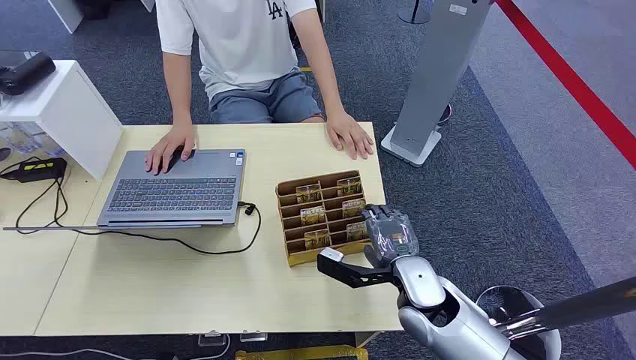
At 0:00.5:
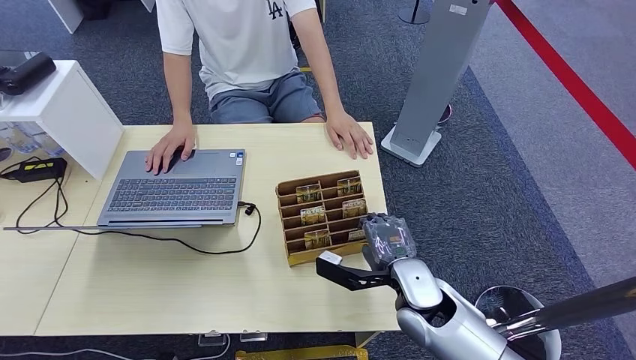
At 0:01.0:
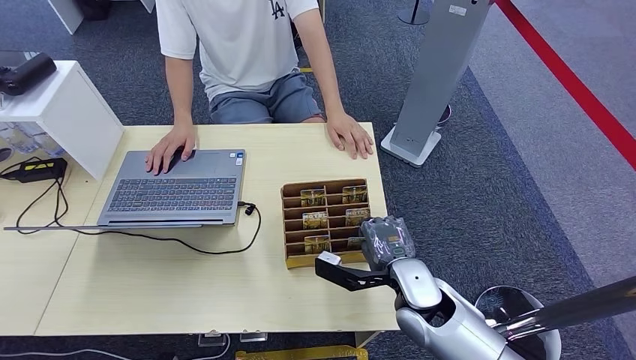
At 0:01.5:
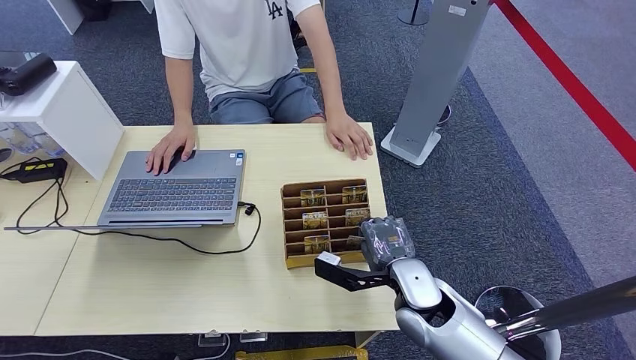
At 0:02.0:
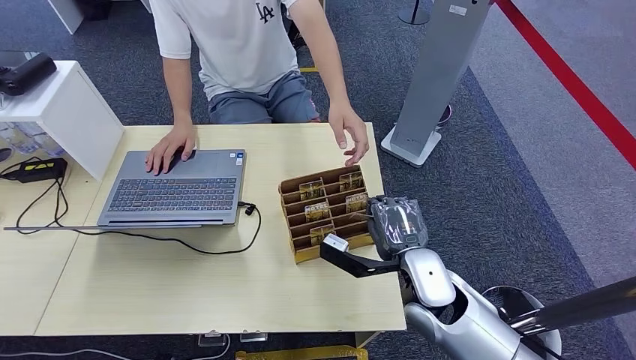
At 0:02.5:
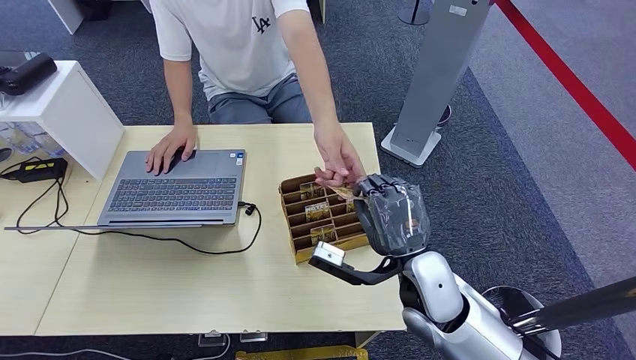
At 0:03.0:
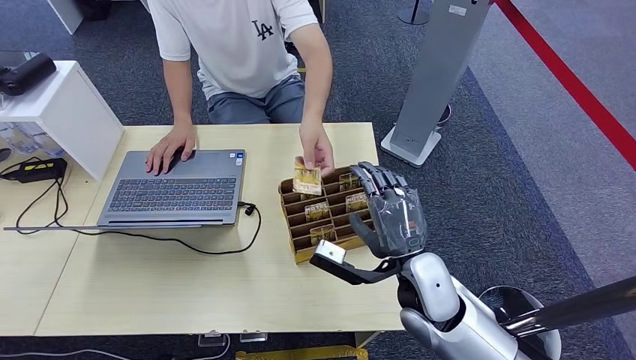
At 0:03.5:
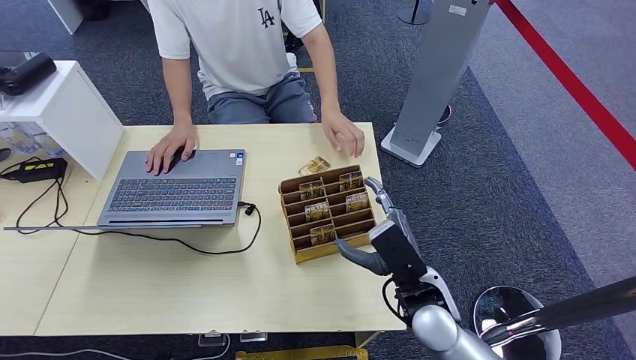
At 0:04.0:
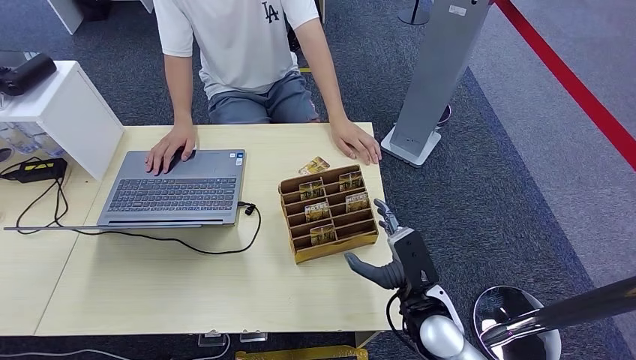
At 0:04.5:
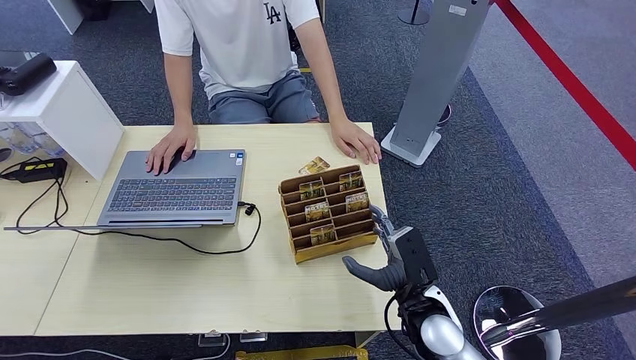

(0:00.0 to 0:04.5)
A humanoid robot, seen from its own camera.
Task of the whole recording: Pick up the card and hand it to the target person.
Step, 0:00.0 - 0:02.0: Pick up the key card from the card box.
Step, 0:02.5 - 0:04.5: Hand the key card to the target.
0:02.0 - 0:04.5: The right hand is displaced downward by about 5 cm.
